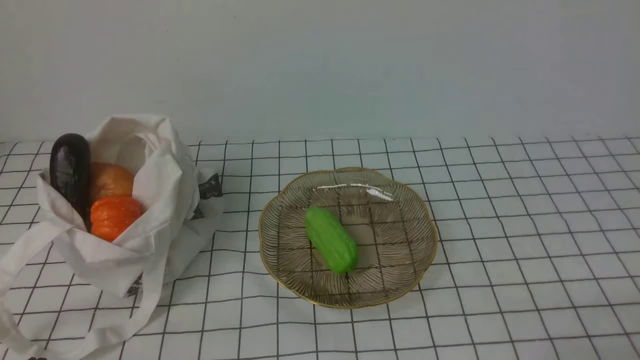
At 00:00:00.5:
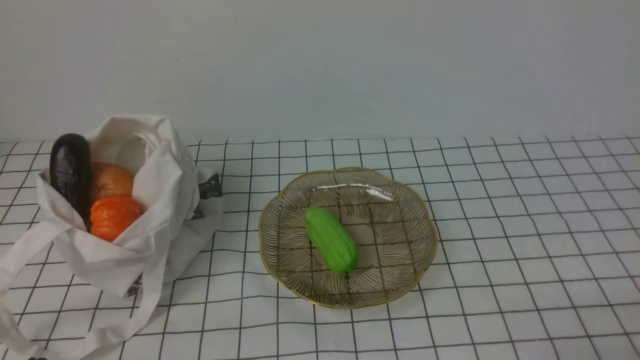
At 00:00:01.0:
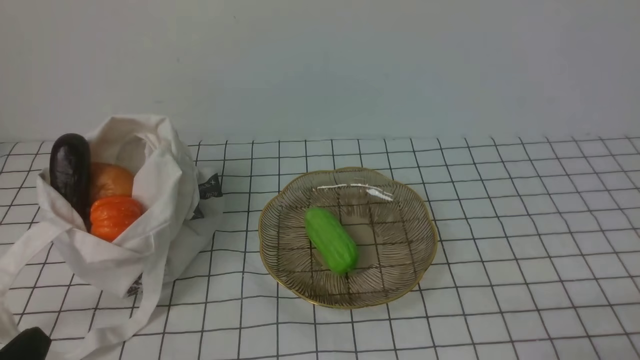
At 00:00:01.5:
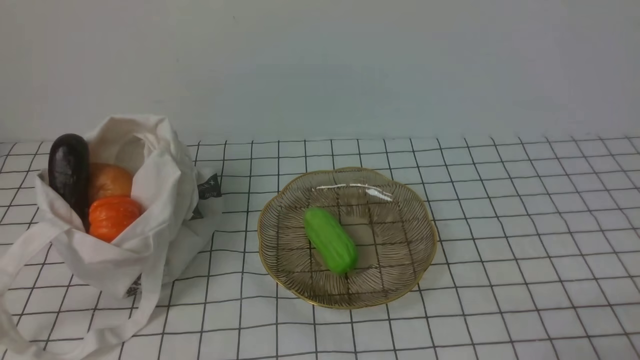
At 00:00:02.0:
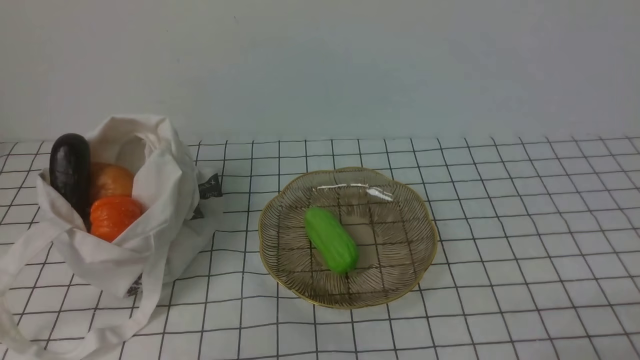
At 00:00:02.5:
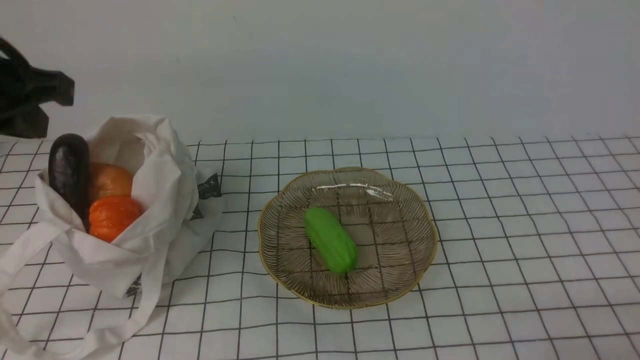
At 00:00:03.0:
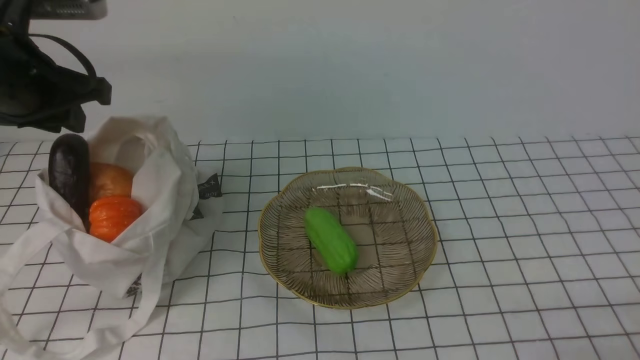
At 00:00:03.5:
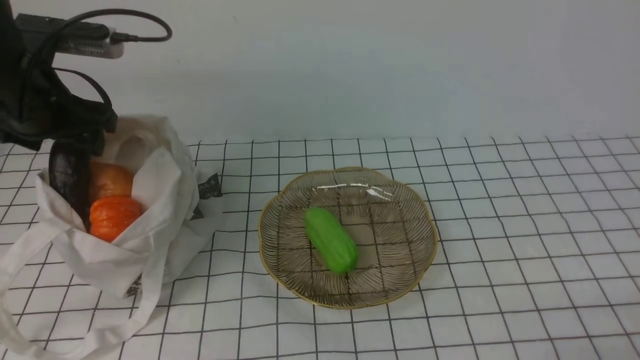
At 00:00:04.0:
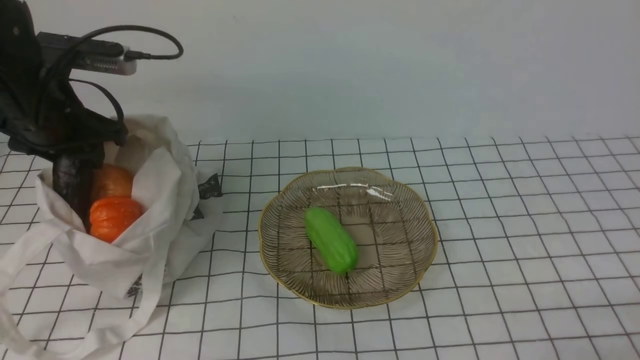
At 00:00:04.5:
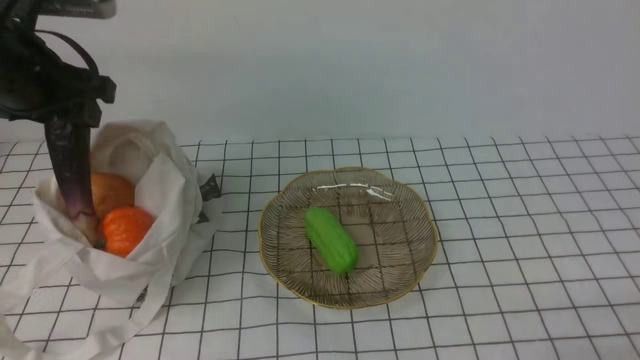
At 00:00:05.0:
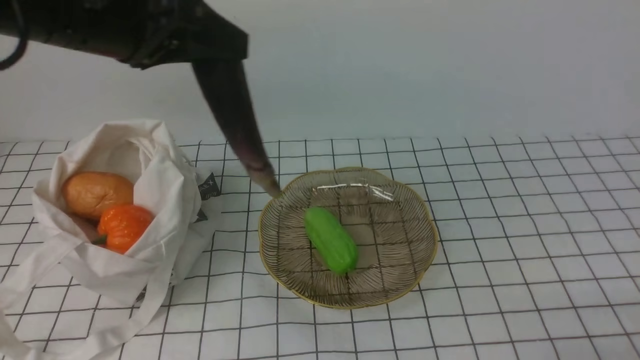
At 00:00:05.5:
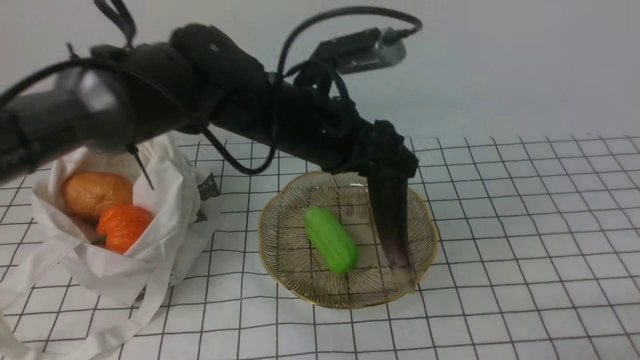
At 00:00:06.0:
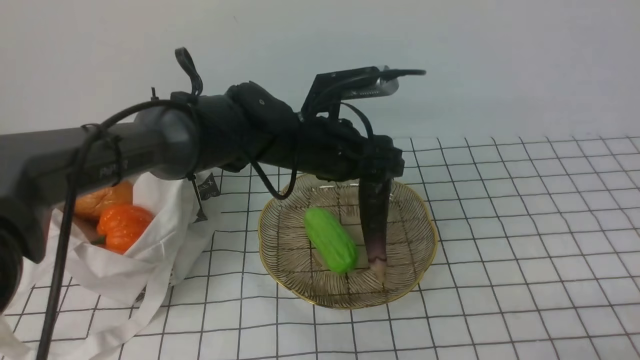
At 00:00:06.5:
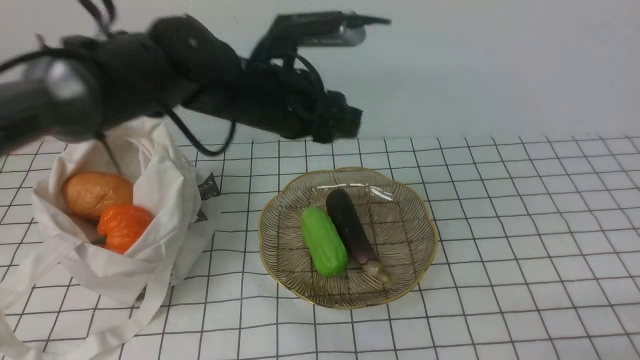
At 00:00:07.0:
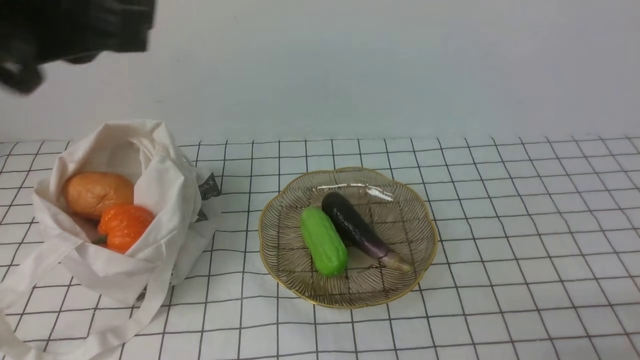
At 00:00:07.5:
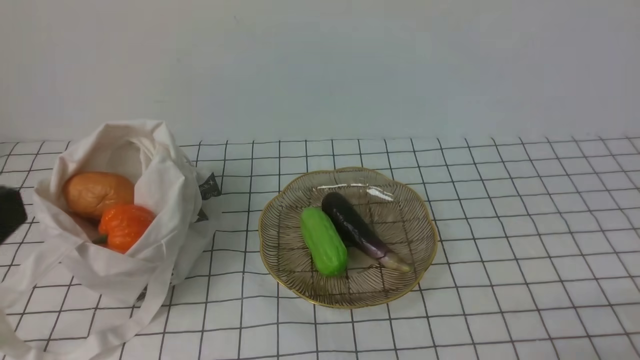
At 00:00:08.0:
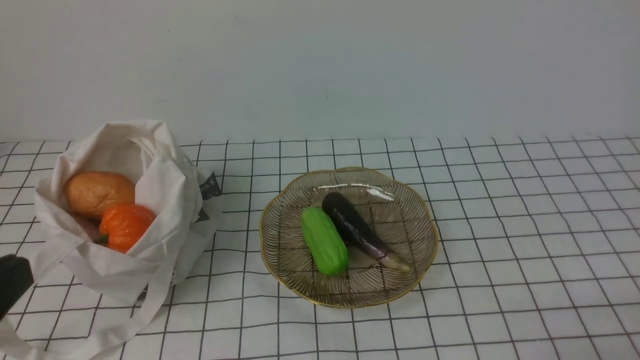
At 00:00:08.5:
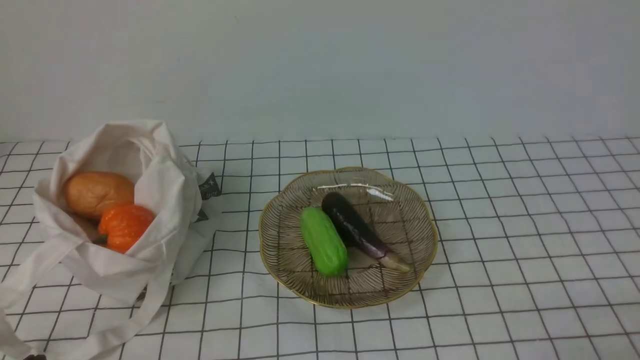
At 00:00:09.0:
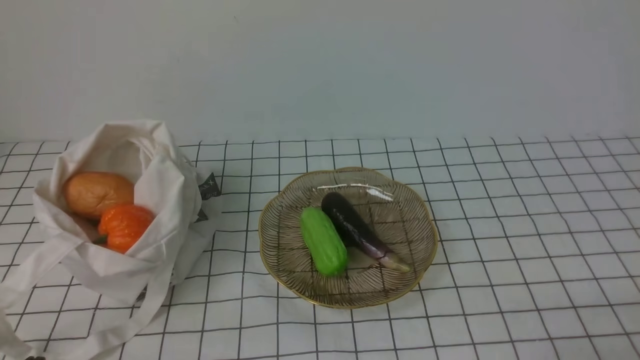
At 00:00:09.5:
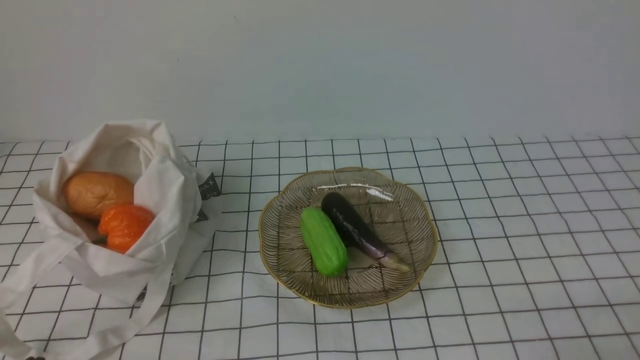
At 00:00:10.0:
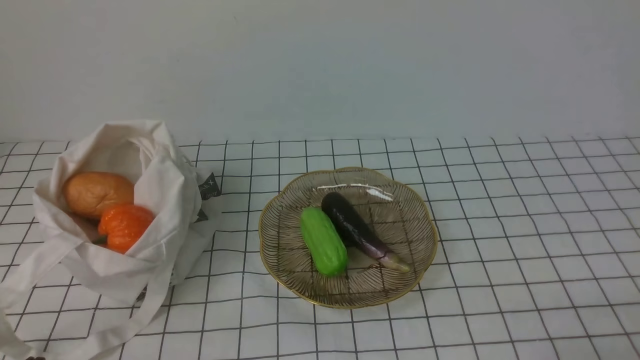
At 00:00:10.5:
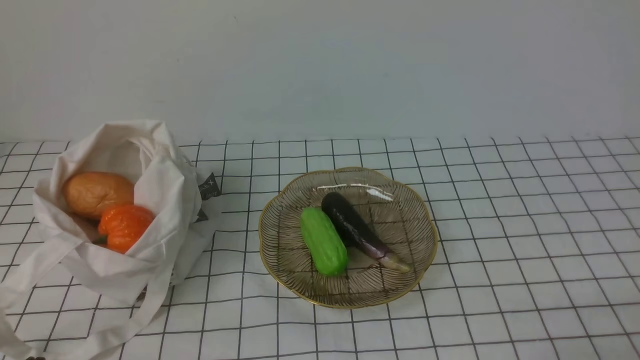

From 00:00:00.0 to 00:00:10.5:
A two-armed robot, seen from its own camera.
Task of the whole recording: take vegetables from bag on white checkered tablecloth place on plate.
Step, from 00:00:00.0 to 00:00:03.5: Grasp the eggplant with left gripper.
Step, from 00:00:04.0 to 00:00:06.0: Place the eggplant on the plate with left gripper.
From 00:00:02.0 to 00:00:04.0: The left gripper heads forward, covering approximately 30 cm, and opens its fingers.
From 00:00:04.0 to 00:00:06.5: The left gripper shifts roughly 20 cm to the right.
From 00:00:06.5 to 00:00:08.5: The left gripper heads backward and to the left, covering approximately 35 cm, and closes up.
